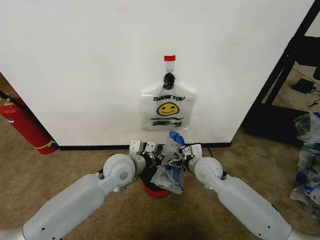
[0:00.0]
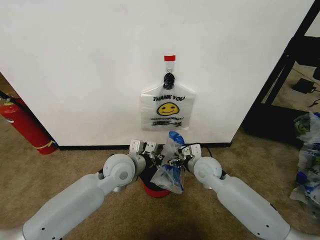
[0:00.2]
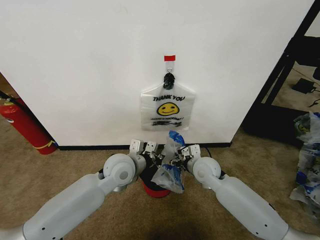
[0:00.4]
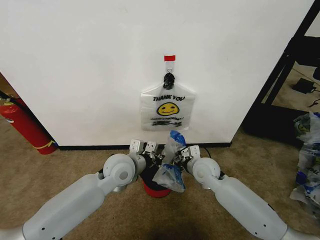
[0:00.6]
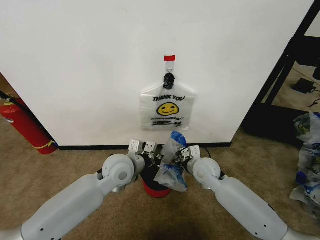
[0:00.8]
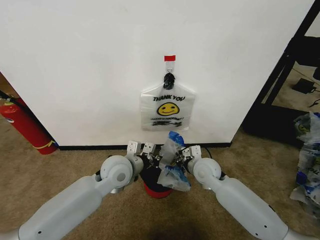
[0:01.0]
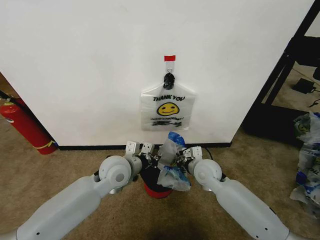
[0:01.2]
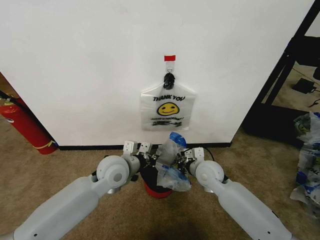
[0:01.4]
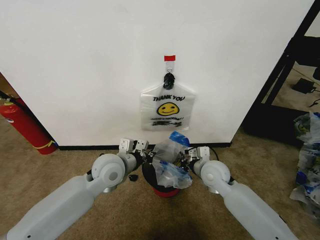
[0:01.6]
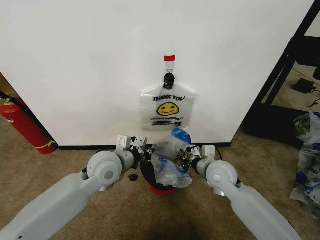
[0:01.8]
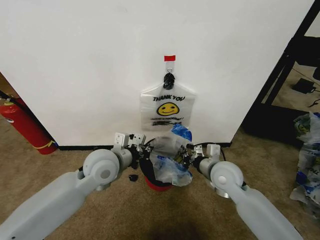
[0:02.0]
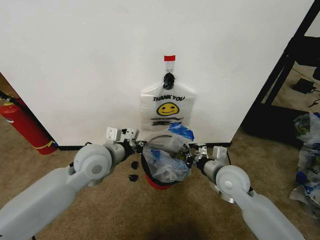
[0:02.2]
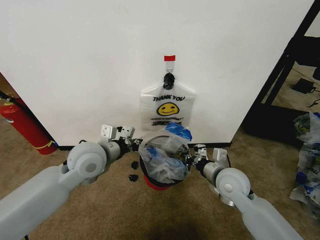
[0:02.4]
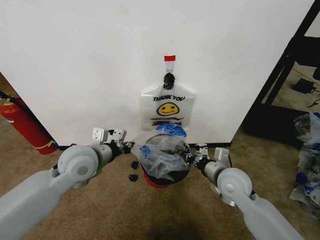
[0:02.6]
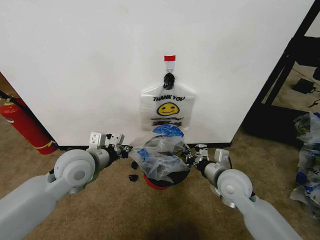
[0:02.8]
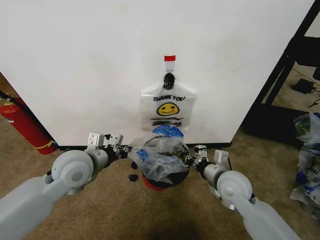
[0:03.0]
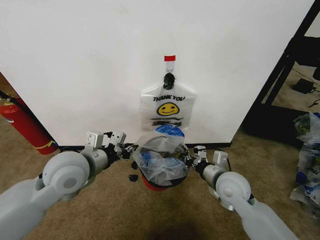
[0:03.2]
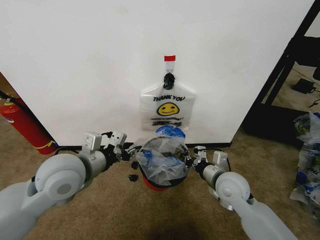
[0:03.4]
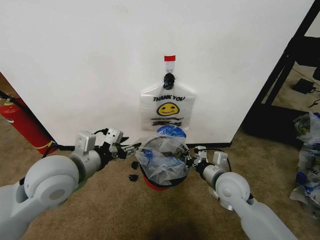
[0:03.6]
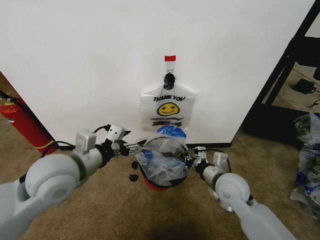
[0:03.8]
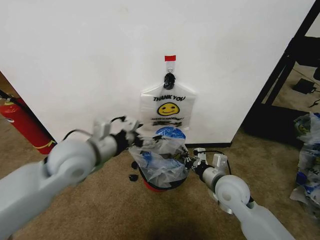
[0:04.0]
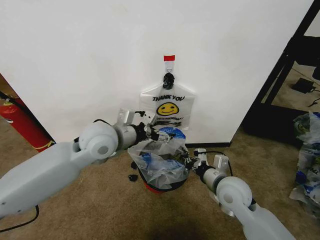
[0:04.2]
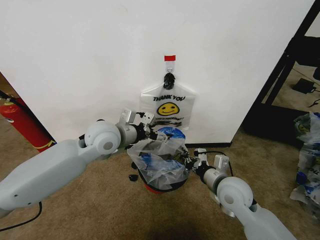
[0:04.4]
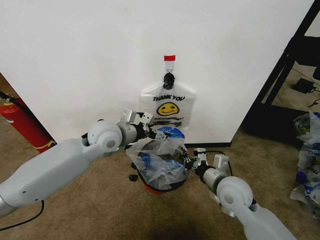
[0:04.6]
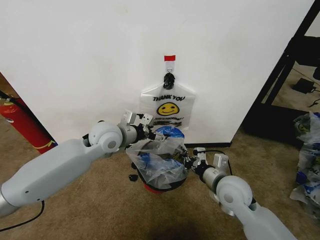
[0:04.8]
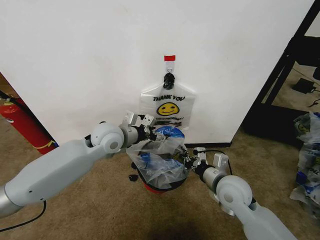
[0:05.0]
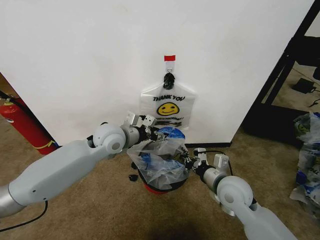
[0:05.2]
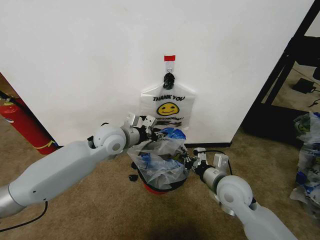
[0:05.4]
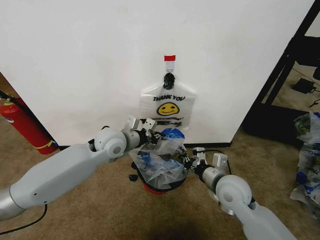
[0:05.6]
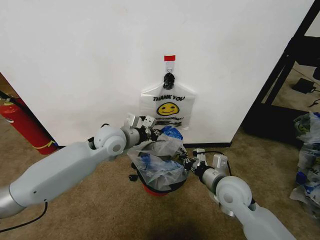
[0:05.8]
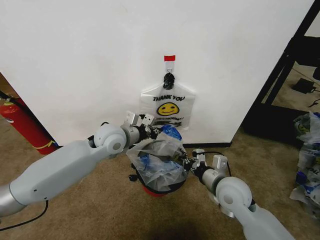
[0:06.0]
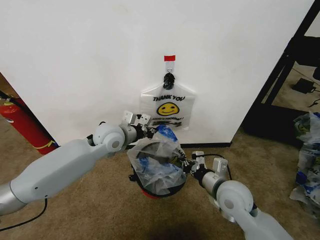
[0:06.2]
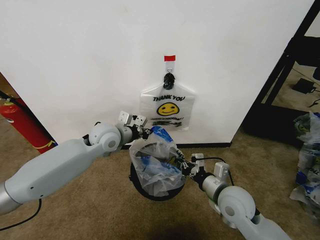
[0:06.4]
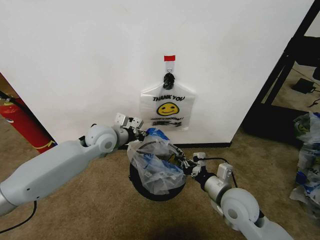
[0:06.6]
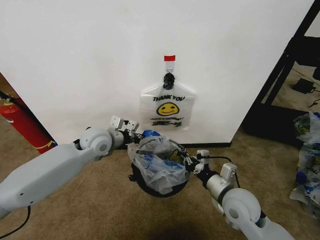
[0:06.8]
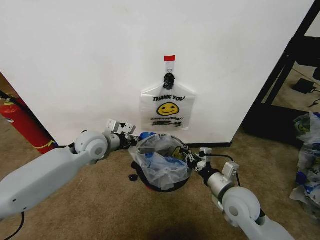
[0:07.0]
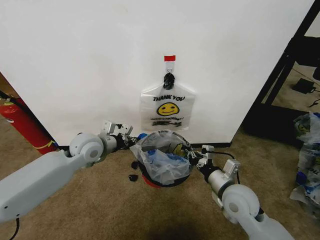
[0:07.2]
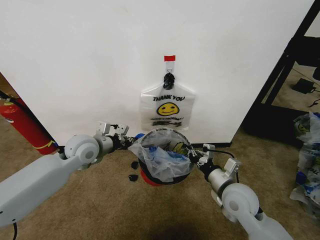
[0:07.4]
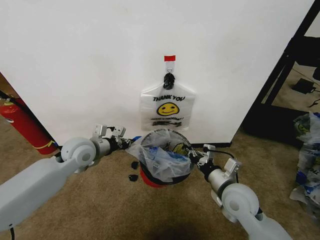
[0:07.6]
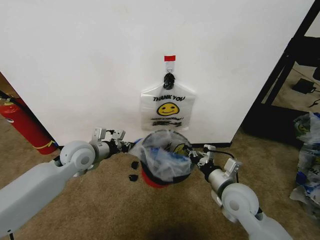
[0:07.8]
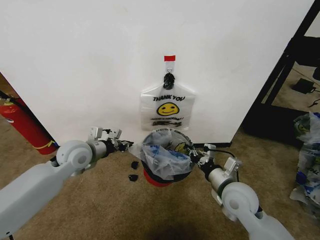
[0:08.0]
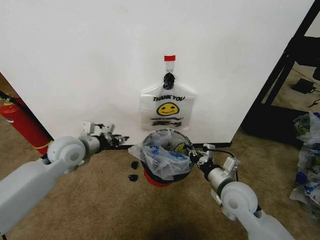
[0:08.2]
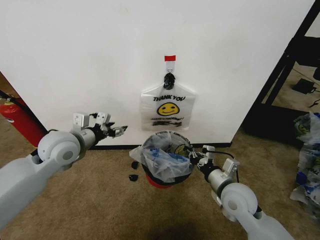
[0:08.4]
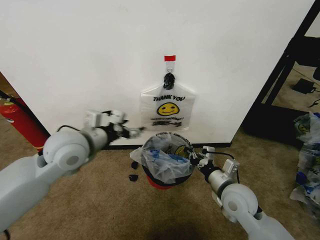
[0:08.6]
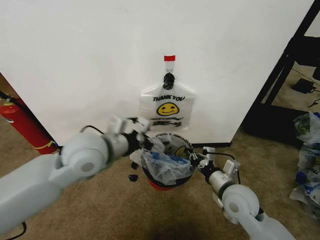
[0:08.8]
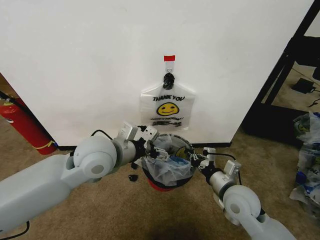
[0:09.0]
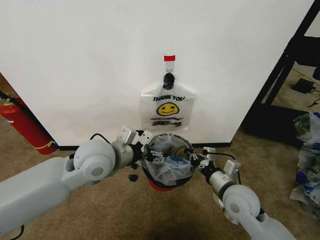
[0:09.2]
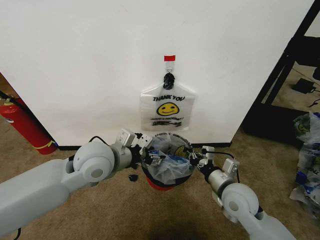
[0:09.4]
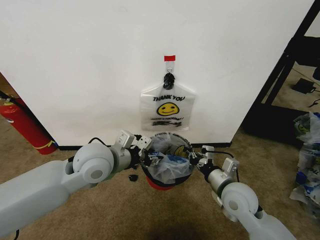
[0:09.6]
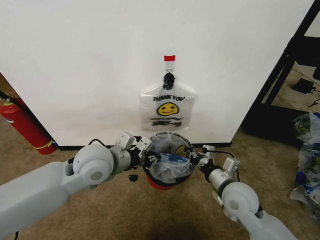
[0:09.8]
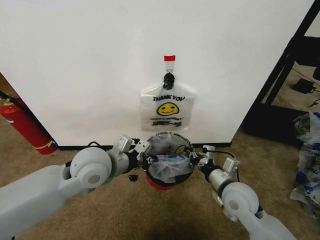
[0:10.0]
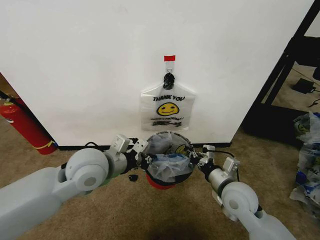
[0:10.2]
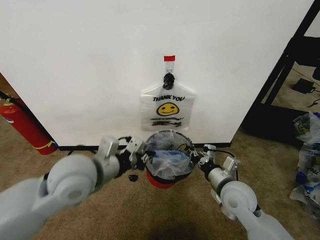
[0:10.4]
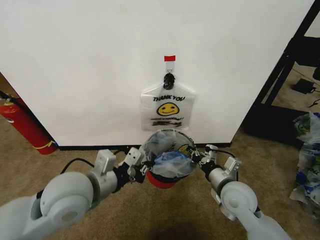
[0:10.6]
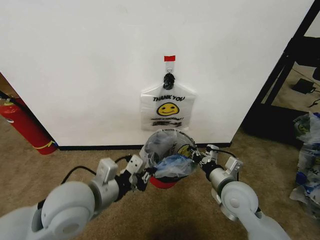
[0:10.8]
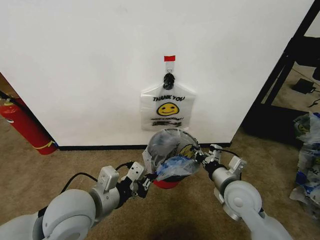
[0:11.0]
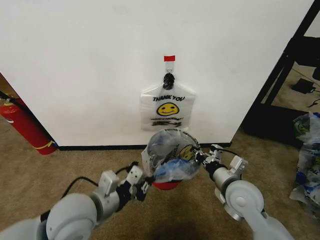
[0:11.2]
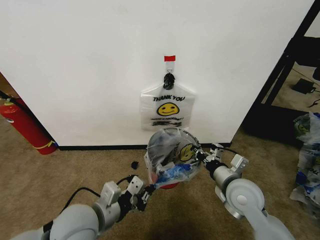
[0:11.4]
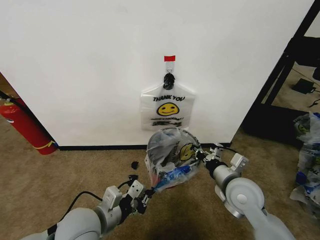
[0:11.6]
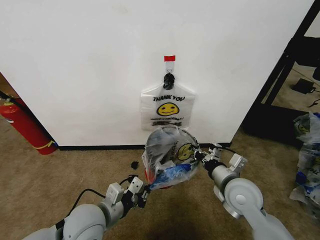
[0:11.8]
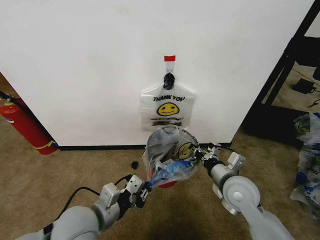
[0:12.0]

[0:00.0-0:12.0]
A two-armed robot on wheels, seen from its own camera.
Task of the whole recording: Pick up the garbage bag from the wall and place it over the trash bin.
0:00.0 to 0:01.6: The right gripper closes up.
0:01.6 to 0:03.0: The right gripper travels backward by approximately 5 cm. Meanwhile the left gripper shifts about 10 cm to the left and upward.
0:03.0 to 0:04.4: The left gripper heads forward and to the right, covering some 10 cm, and opens.
0:04.4 to 0:06.0: The left gripper ends up some 5 cm from where it was, and closes its fingers.
0:06.0 to 0:07.6: The left gripper goes roughly 10 cm to the left.
0:07.6 to 0:09.0: The left gripper goes approximately 15 cm to the right, upward and backward, and opens.
0:09.0 to 0:10.4: The left gripper goes some 5 cm backward, and closes.
0:10.4 to 0:12.0: The left gripper travels downward and backward by about 10 cm.

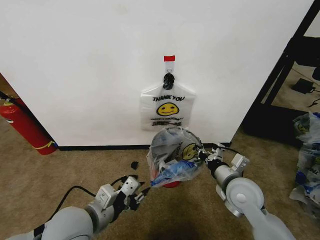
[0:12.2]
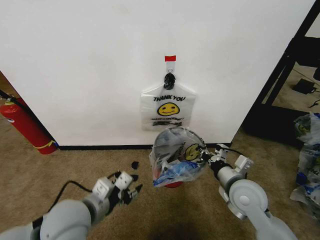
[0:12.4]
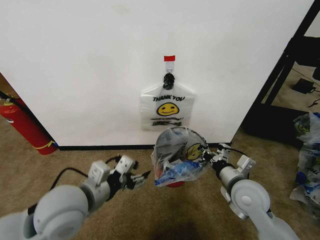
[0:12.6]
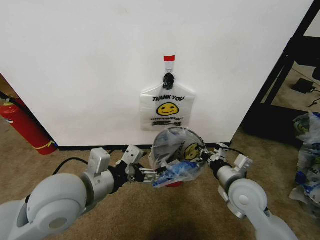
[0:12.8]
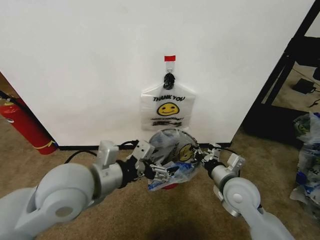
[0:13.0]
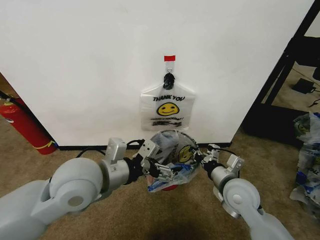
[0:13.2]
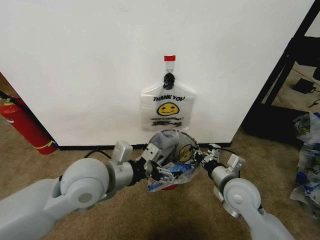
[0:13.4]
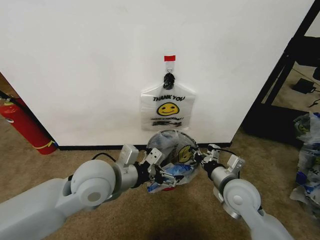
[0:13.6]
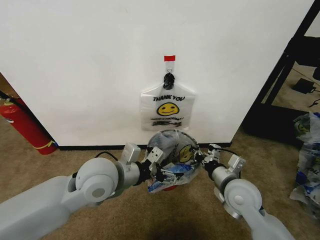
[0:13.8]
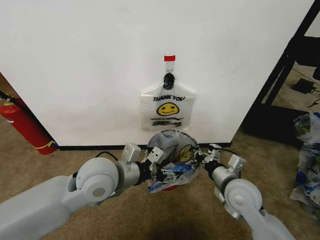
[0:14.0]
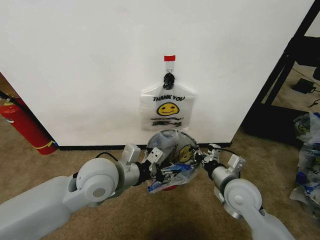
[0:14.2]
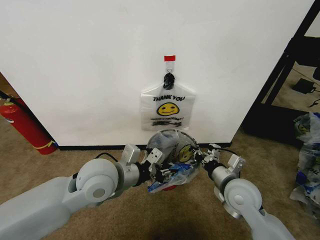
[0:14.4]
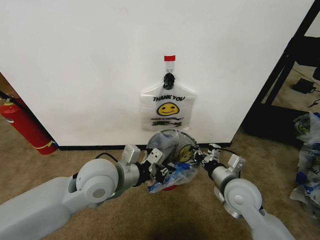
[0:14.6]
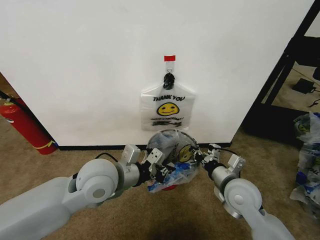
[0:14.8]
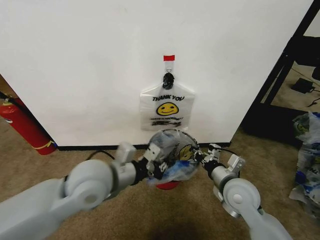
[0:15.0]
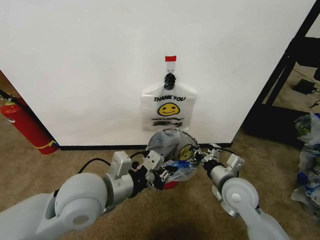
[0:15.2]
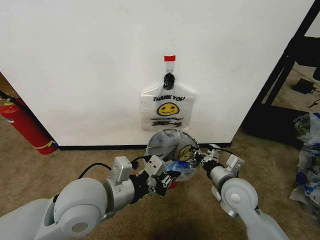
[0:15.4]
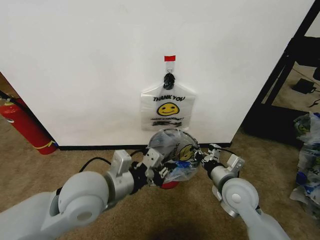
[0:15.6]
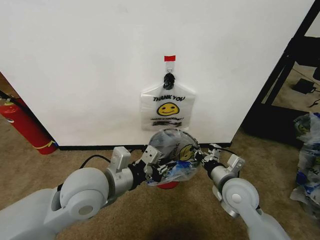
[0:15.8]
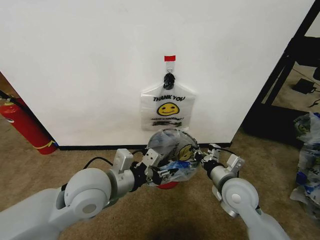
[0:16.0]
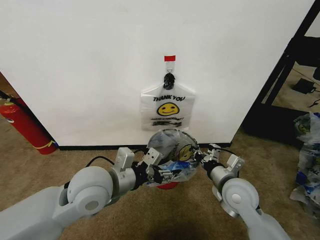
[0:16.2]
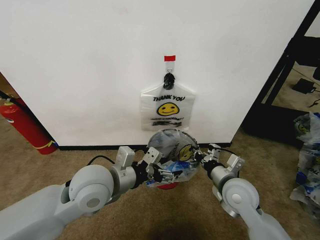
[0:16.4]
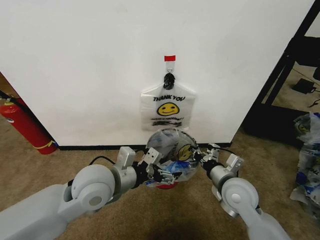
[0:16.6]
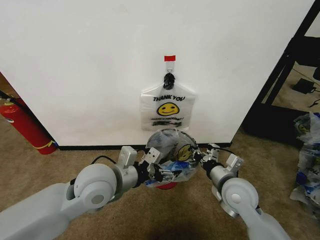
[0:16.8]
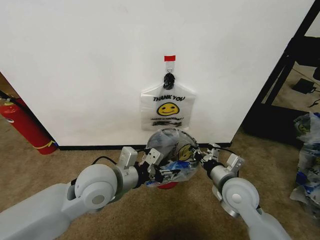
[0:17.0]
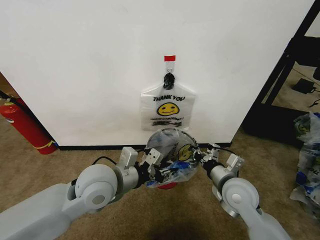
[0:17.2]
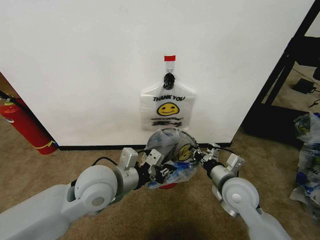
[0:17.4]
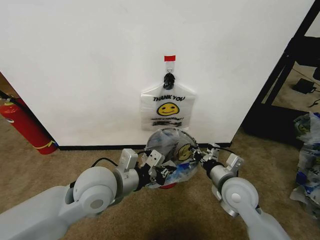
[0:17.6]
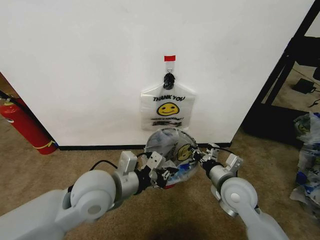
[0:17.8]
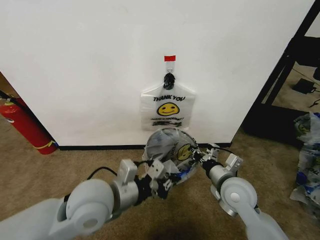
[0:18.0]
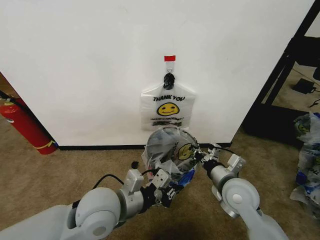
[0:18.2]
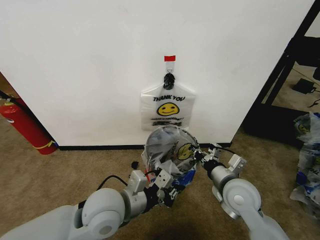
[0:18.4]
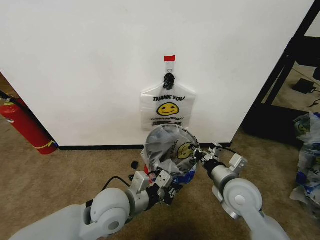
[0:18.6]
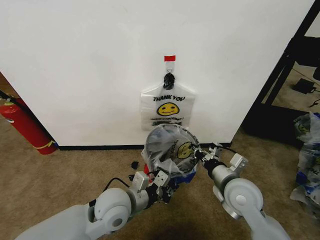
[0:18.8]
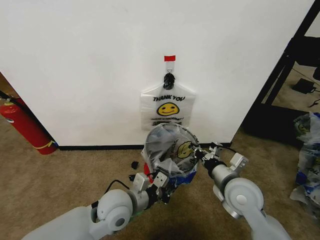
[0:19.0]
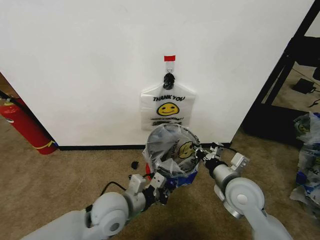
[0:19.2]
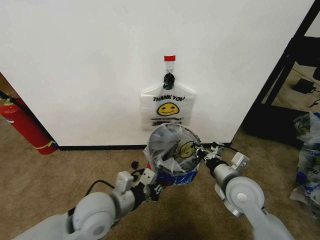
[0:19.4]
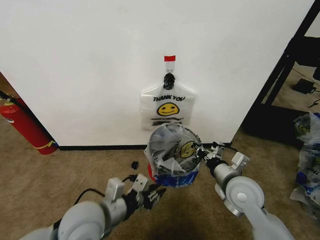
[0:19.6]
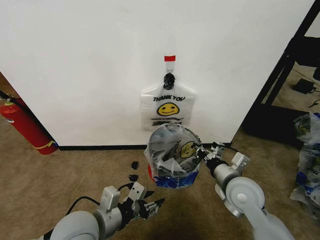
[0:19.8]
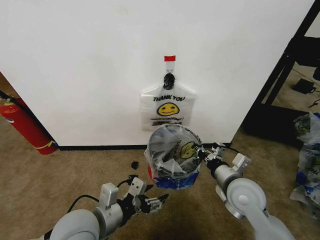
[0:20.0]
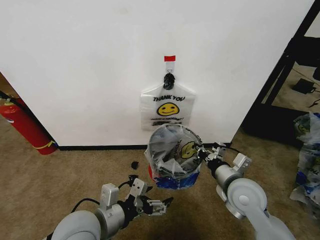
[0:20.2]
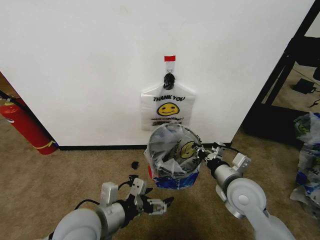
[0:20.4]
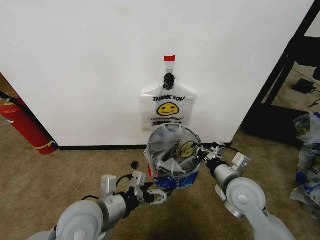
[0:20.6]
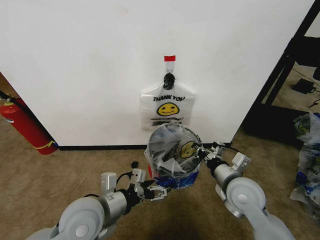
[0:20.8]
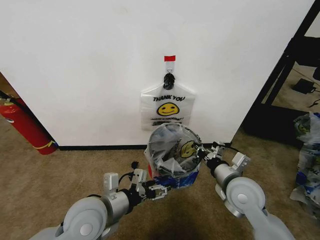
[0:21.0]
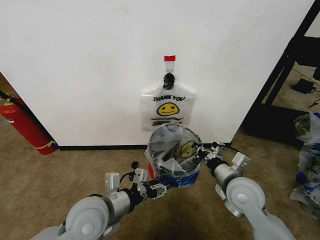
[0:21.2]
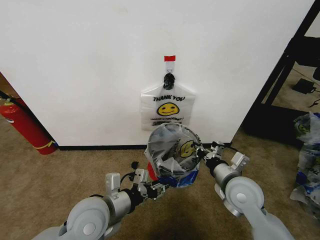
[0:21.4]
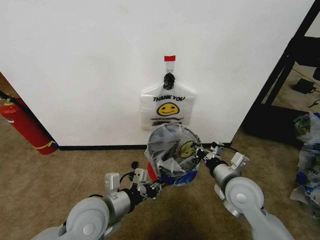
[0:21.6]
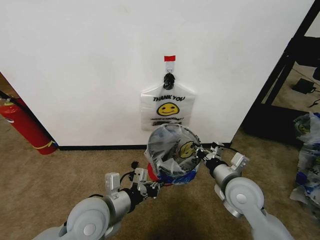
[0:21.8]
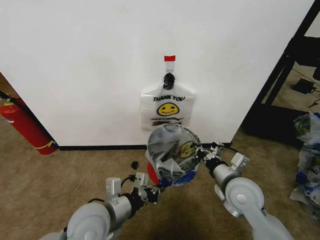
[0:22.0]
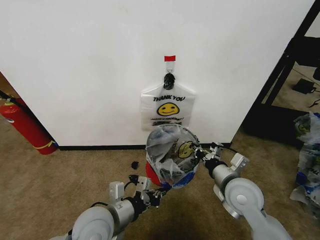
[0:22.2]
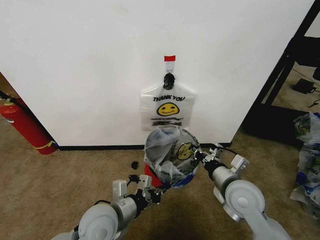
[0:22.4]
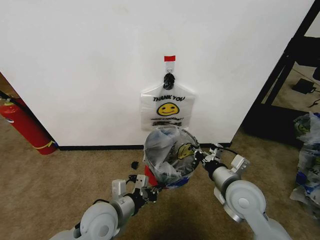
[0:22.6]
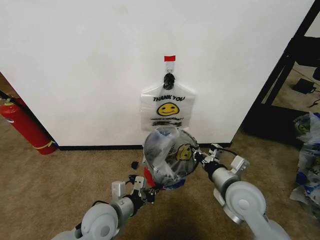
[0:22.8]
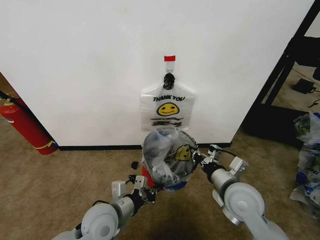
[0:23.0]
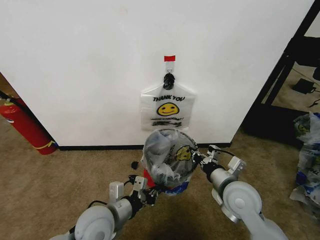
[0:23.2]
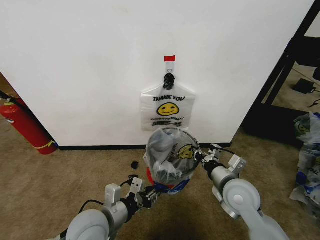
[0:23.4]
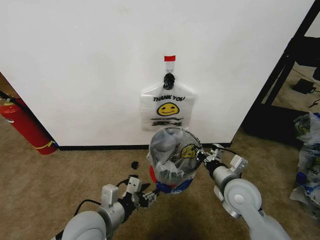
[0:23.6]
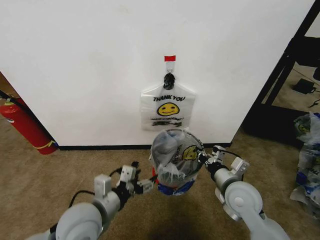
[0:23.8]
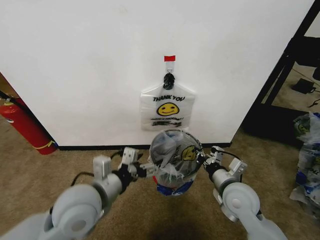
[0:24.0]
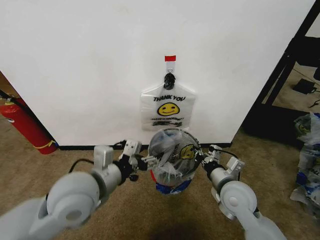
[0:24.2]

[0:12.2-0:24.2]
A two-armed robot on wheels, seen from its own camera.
Task of the whole recording: Pick up the garbage bag from the wall and place it over the trash bin.
0:12.2 to 0:13.8: The left gripper heads forward and upward, covering about 10 cm, and opens up.
0:13.8 to 0:15.2: The left gripper travels backward by some 5 cm, and closes.
0:15.2 to 0:16.6: The left gripper changes place by approximately 5 cm, and opens up.
0:16.6 to 0:18.2: The left gripper moves some 5 cm, and closes.
0:18.2 to 0:19.8: The left gripper goes downward and returns, roughly 10 cm each way, and opens its fingers.
0:19.8 to 0:21.2: The left gripper opens, then closes once more.
0:21.2 to 0:22.6: The left gripper moves downward, about 5 cm, and closes its fingers.
0:22.6 to 0:24.2: The left gripper is displaced upward by some 15 cm, and opens.
